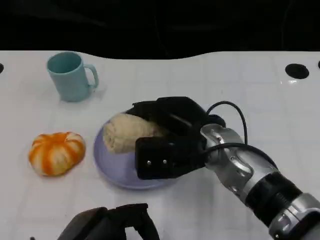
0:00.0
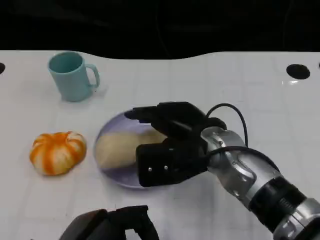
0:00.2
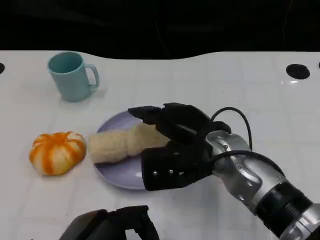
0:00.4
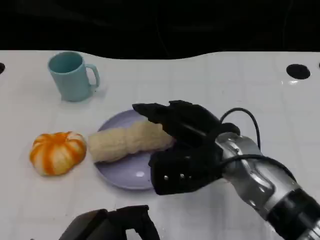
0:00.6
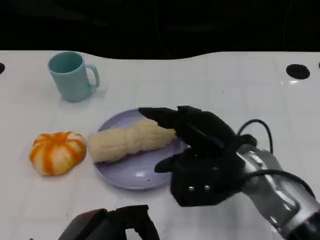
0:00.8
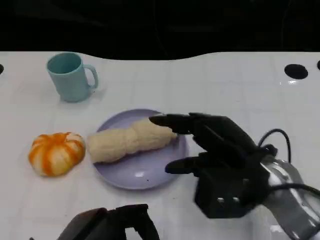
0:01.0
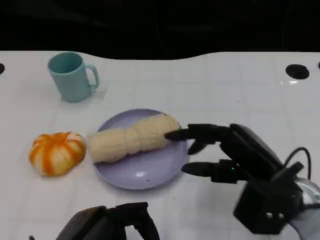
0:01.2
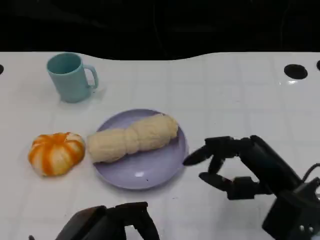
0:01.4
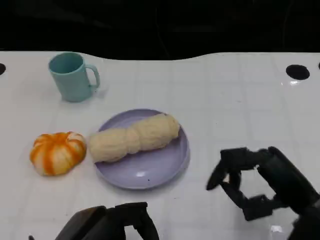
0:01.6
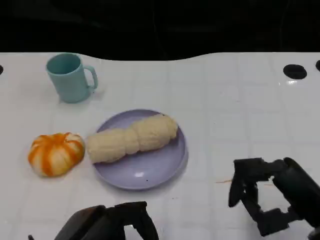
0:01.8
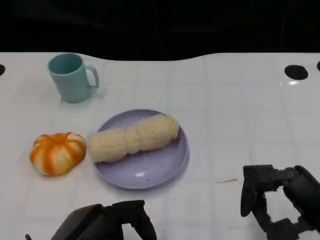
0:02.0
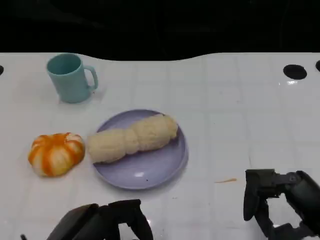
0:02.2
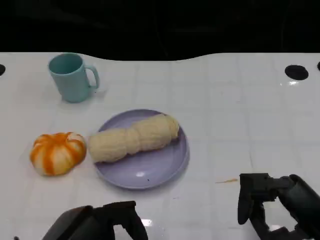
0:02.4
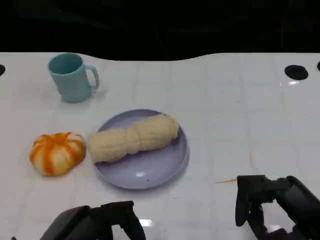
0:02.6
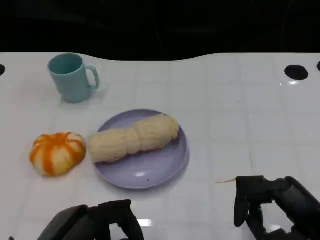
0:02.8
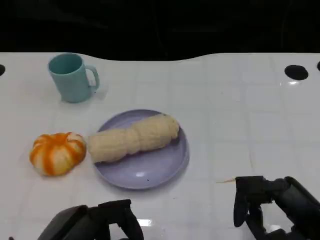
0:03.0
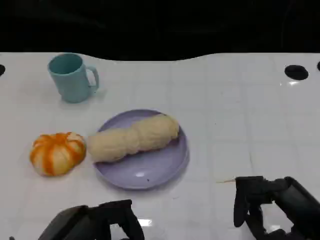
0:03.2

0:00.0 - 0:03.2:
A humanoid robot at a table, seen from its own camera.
Task of the whole recording: Grasp the towel on the left side of the plate with the left hand and place it into the plate.
0:00.0 - 0:01.6: The right hand moves to the right and backward, approximately 20 cm.
0:01.6 - 0:03.2: The hands move only a little.

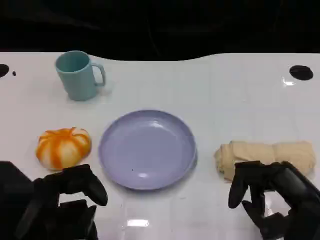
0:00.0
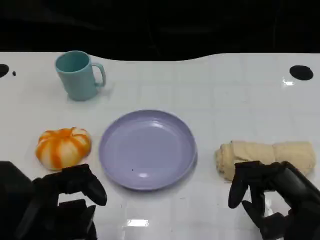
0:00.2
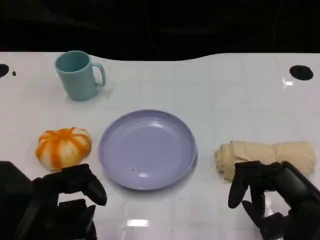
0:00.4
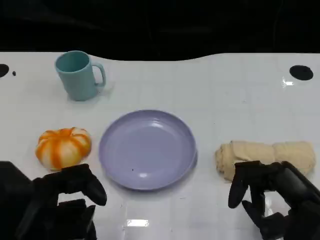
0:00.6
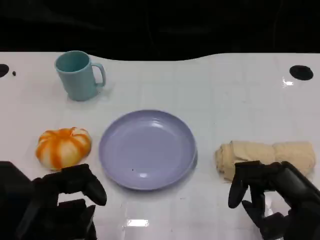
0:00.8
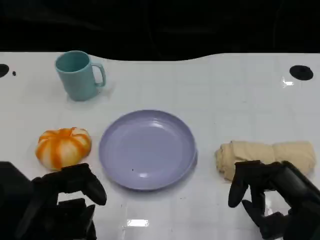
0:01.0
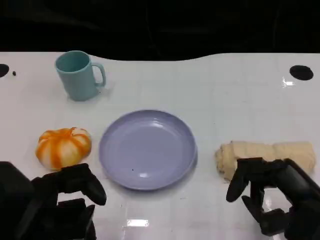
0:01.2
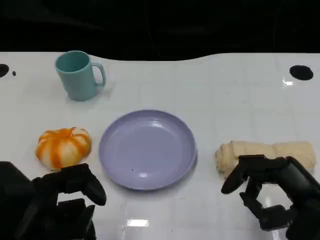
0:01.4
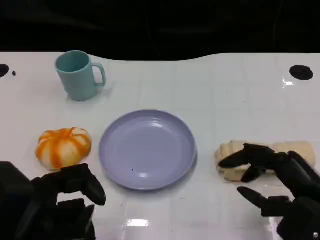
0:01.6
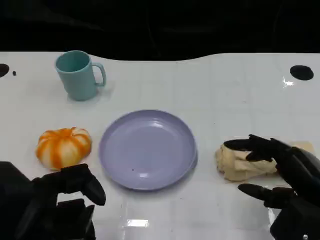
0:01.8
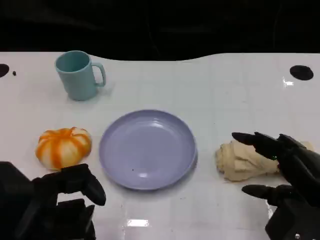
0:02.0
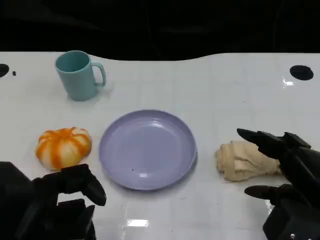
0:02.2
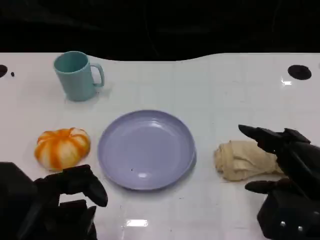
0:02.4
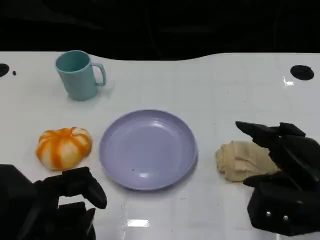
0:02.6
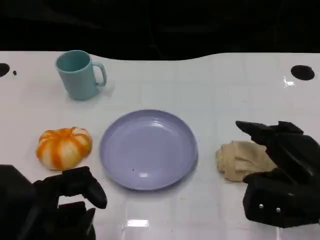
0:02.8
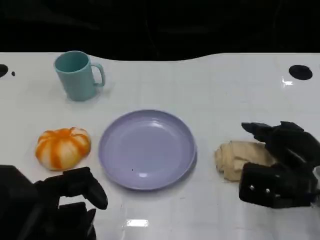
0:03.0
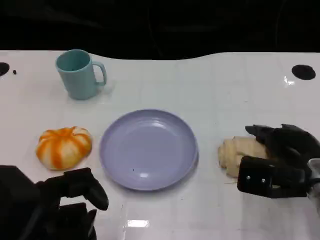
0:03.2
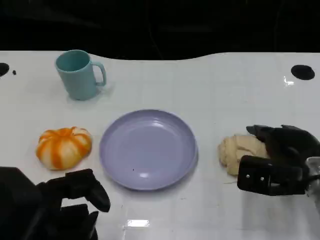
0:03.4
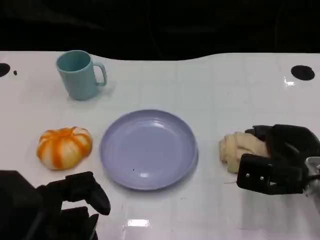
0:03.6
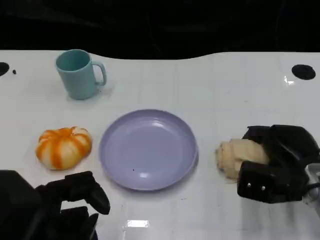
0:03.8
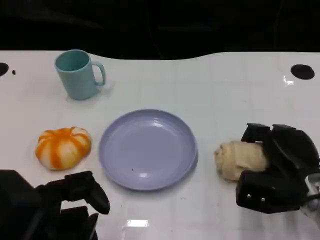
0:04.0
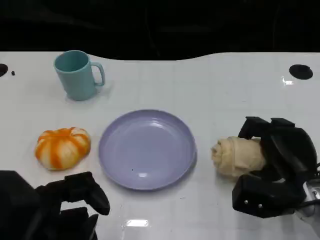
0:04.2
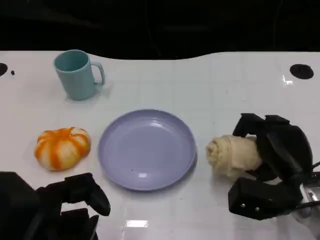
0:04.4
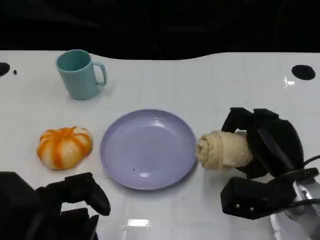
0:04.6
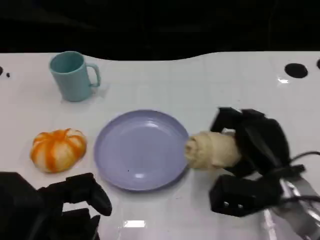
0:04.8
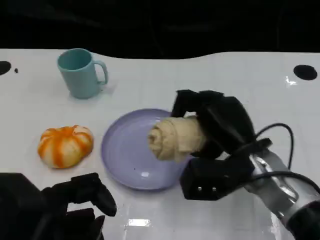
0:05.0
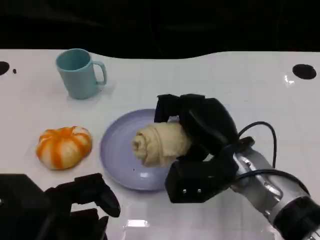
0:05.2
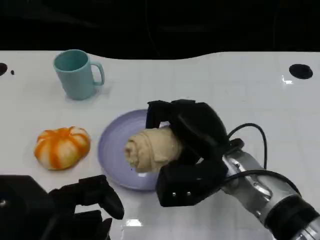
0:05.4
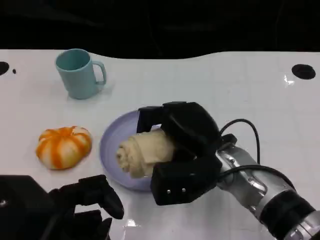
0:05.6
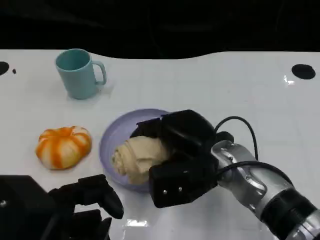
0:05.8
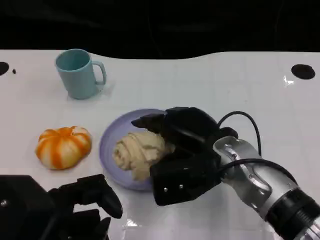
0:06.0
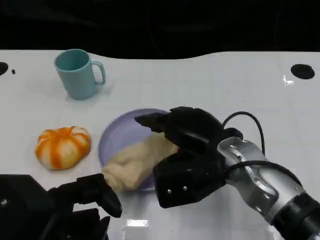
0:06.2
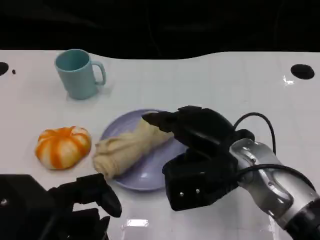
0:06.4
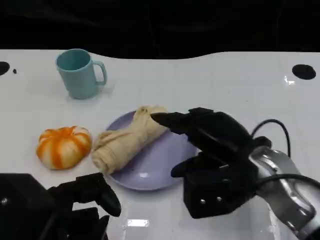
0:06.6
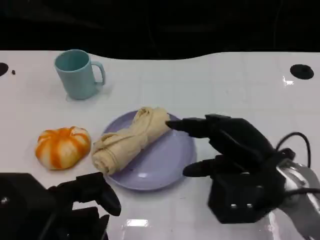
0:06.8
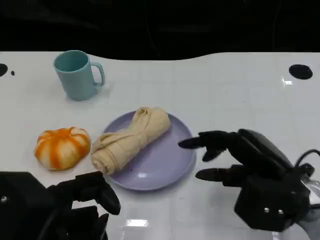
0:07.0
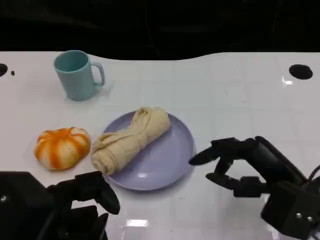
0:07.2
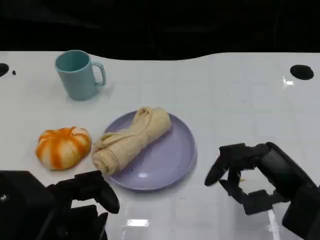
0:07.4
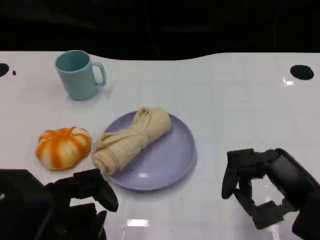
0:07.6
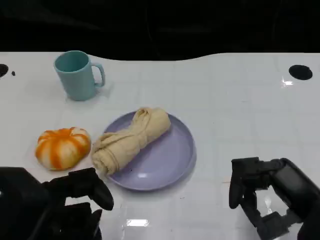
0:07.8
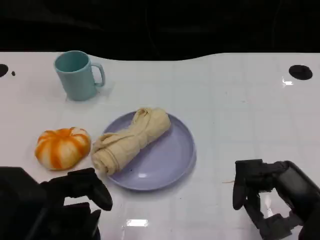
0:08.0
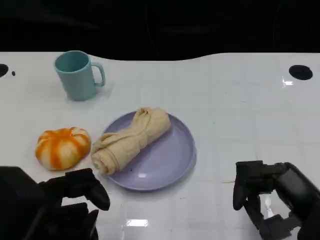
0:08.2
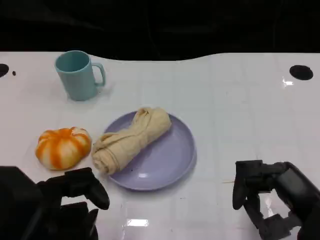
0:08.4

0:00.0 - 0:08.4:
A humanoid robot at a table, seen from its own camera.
Task of the whole recording: Grasp the towel on the left side of the plate with the left hand and place it into the plate.
0:00.0 - 0:01.4: The two hands keep their place.
0:01.4 - 0:02.8: The right hand heads forward, covering roughly 5 cm.
0:02.8 - 0:04.2: The right hand travels downward by approximately 5 cm.
0:04.2 - 0:05.6: The right hand heads to the left and upward, covering roughly 15 cm.
0:05.6 - 0:07.0: The right hand is displaced to the right and backward by about 10 cm.
0:07.0 - 0:08.4: The right hand goes approximately 5 cm backward.

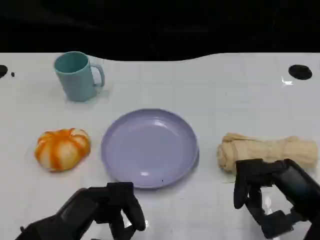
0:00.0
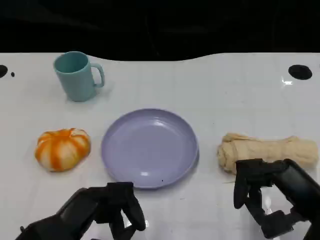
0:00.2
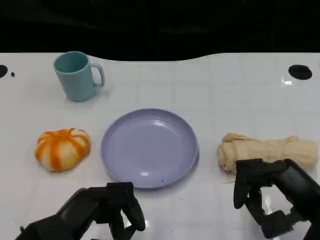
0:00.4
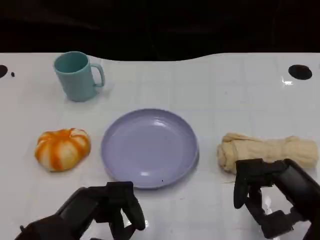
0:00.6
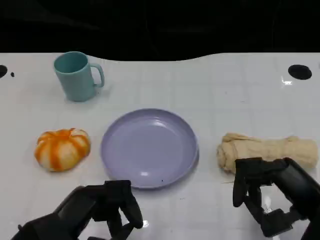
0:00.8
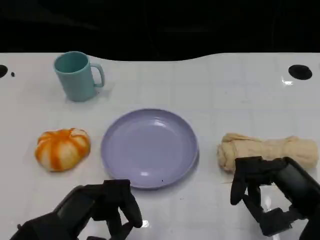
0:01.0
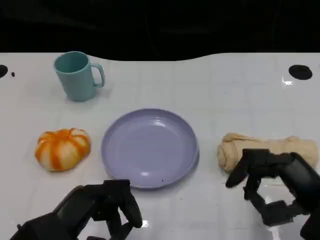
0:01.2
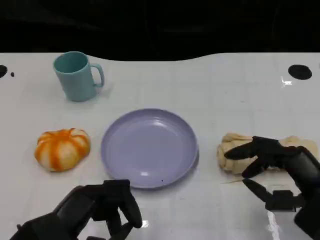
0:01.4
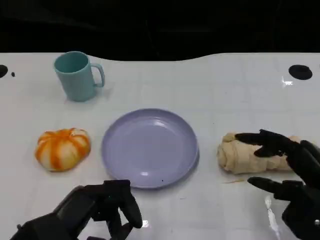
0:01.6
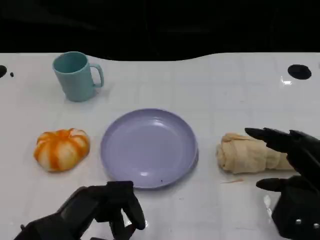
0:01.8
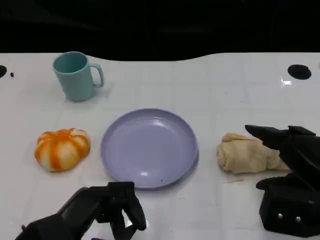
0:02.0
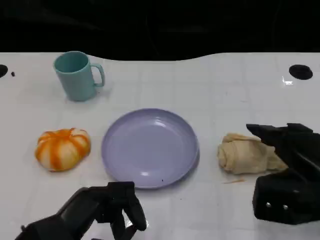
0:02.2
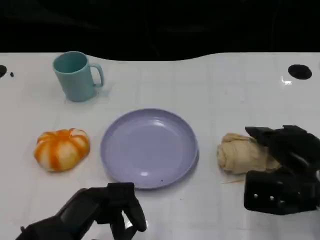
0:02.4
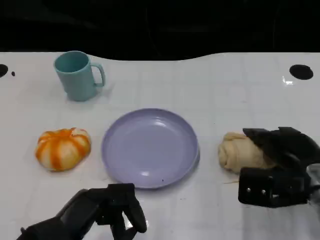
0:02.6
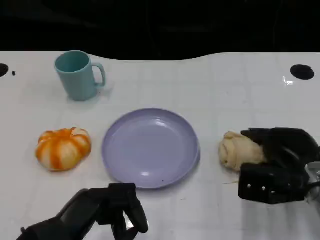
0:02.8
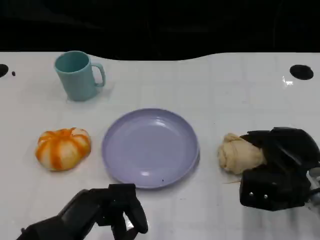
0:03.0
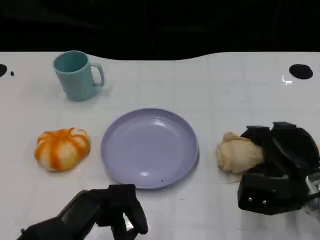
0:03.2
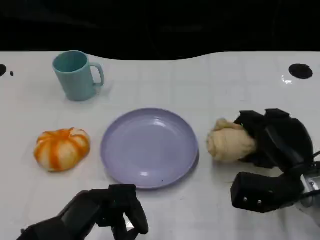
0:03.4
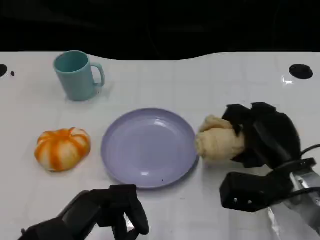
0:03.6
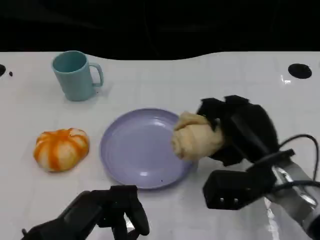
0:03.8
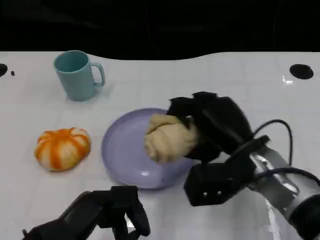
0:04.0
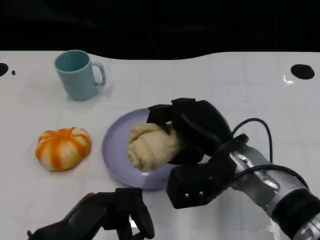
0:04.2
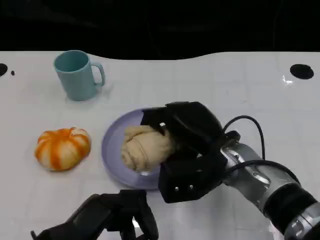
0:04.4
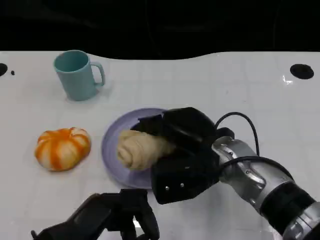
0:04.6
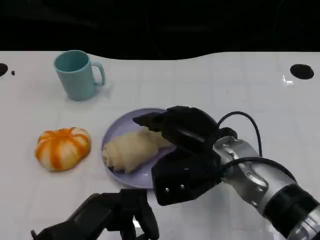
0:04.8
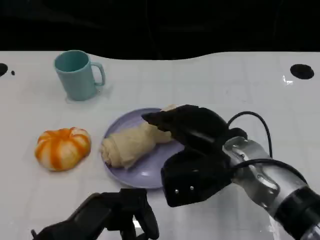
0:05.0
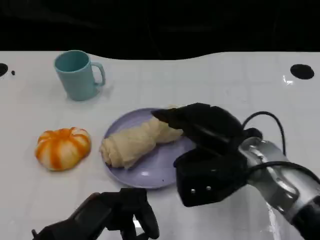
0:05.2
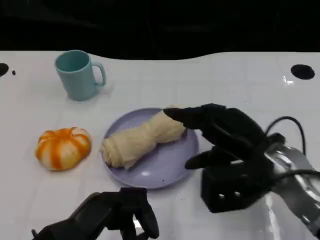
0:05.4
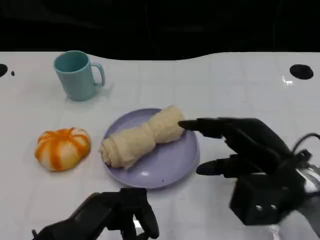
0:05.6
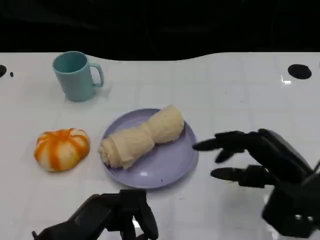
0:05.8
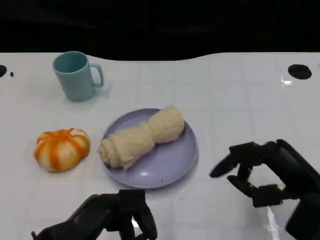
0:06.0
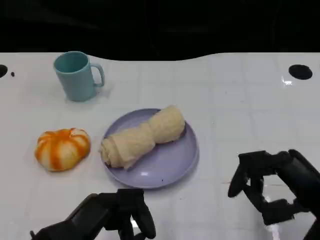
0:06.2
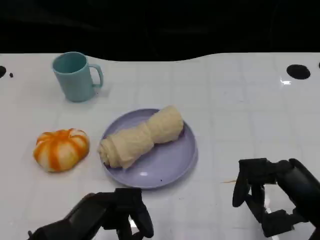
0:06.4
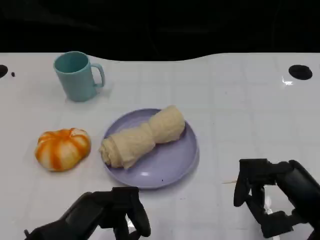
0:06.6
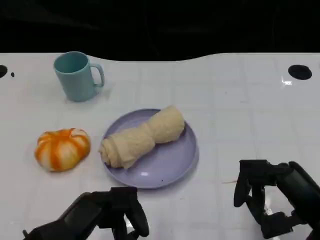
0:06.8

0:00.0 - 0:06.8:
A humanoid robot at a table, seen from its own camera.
Task of the whole recording: Grasp the towel on the left side of the plate with the left hand and place it into the plate.
0:00.0 - 0:01.4: The hands stay close to where they were, moving slightly.
0:01.4 - 0:02.8: The right hand is displaced forward and downward by roughly 10 cm.
0:02.8 - 0:04.0: The right hand goes roughly 10 cm to the left.
0:04.0 - 0:05.4: The right hand changes place by about 5 cm.
0:05.4 - 0:06.8: The right hand heads backward and to the right, covering about 10 cm.

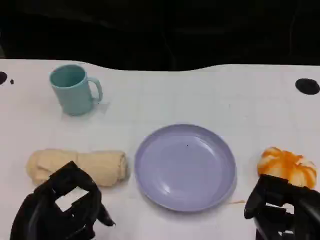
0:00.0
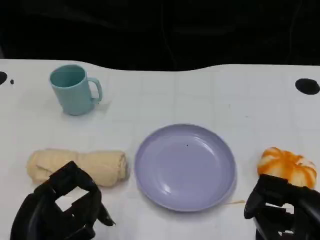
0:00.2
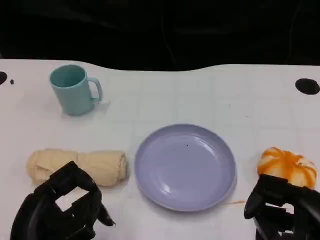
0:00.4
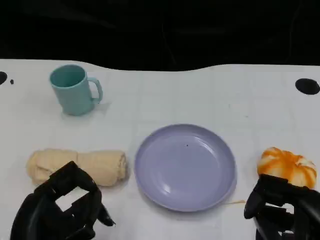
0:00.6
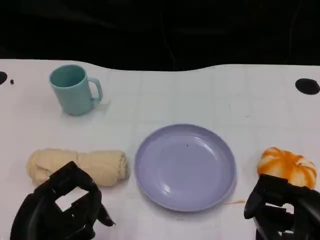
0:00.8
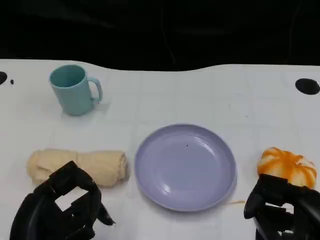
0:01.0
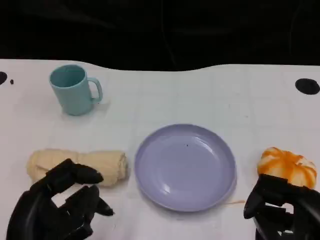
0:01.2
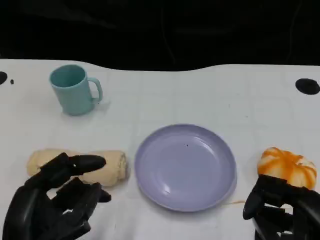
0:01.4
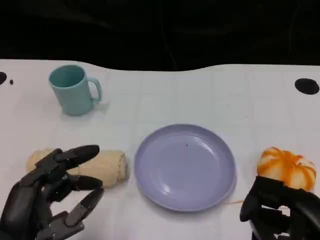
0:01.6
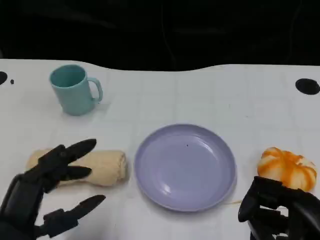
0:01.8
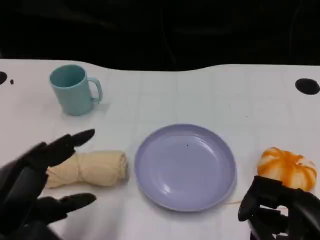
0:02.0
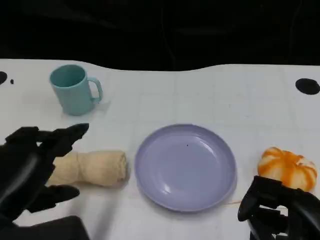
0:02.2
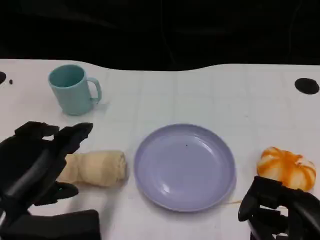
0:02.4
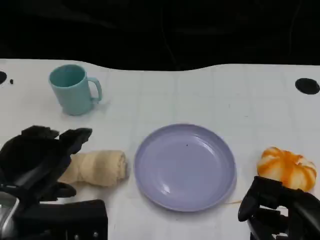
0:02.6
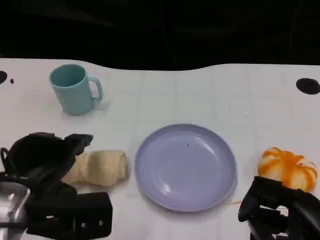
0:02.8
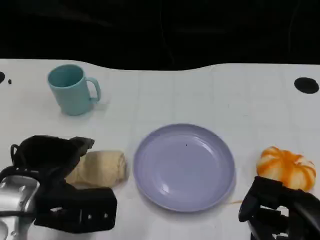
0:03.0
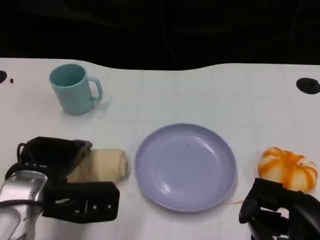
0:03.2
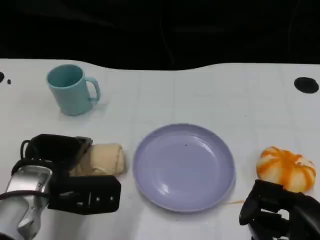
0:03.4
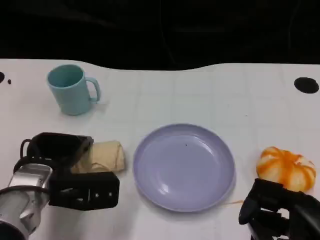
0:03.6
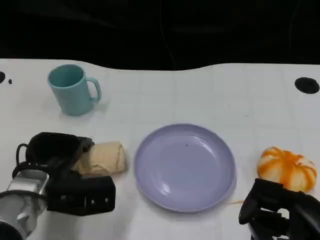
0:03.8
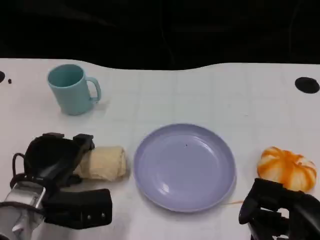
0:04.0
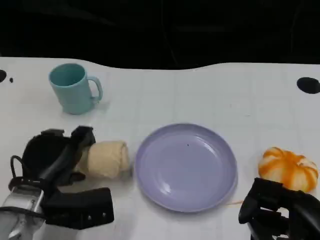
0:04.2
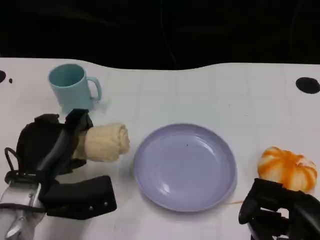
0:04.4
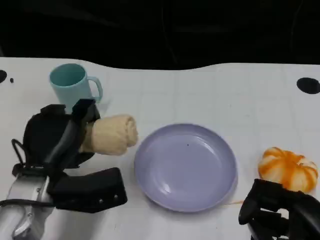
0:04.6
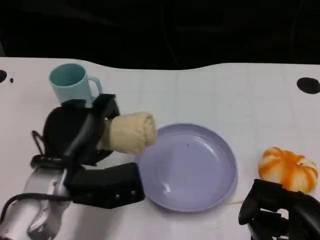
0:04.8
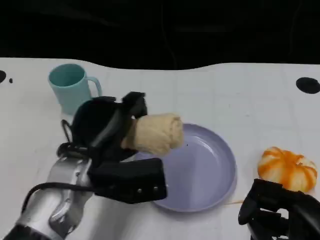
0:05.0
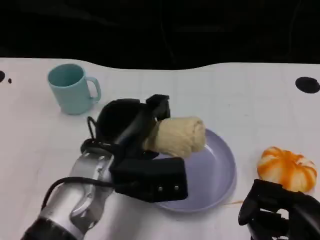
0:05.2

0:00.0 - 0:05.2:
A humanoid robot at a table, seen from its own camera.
Task of the whole recording: Grasp the towel on the left side of the plate with the left hand and place it into the plate.
0:01.8 - 0:03.4: The left hand heads forward, covering about 15 cm.
0:03.4 - 0:05.2: The left hand travels to the right by approximately 10 cm.
